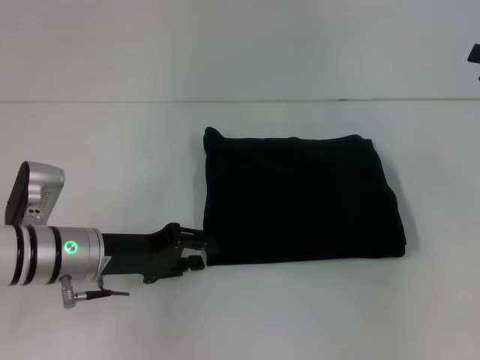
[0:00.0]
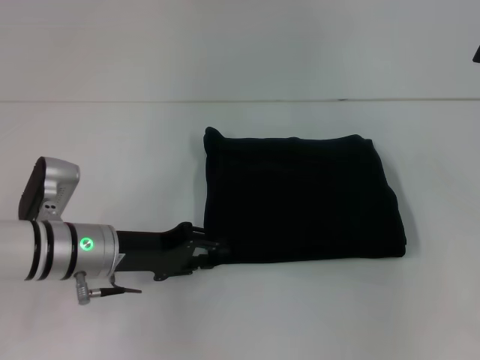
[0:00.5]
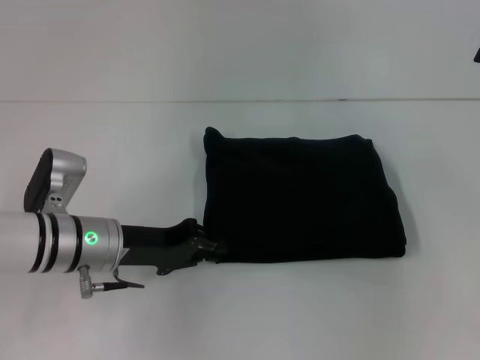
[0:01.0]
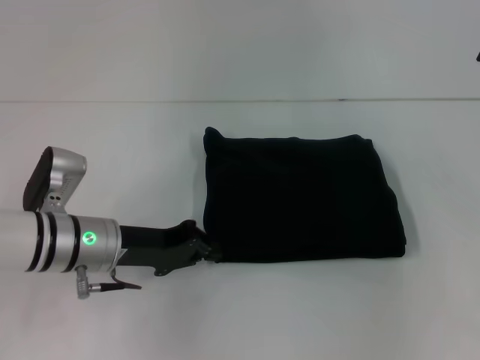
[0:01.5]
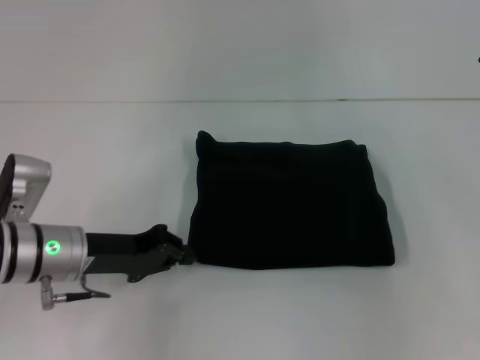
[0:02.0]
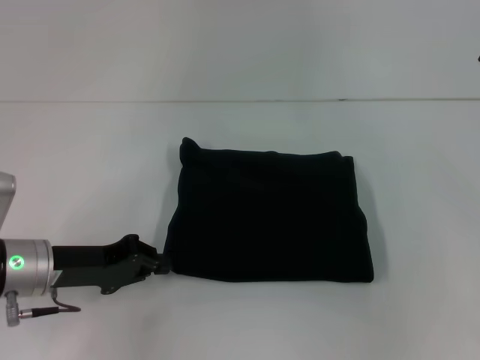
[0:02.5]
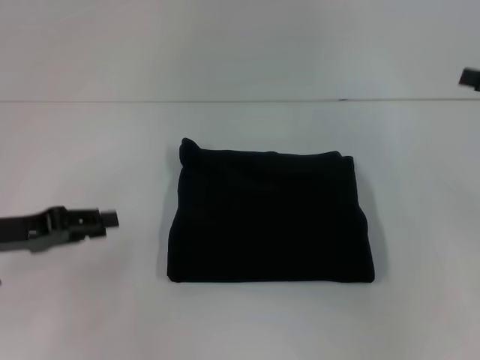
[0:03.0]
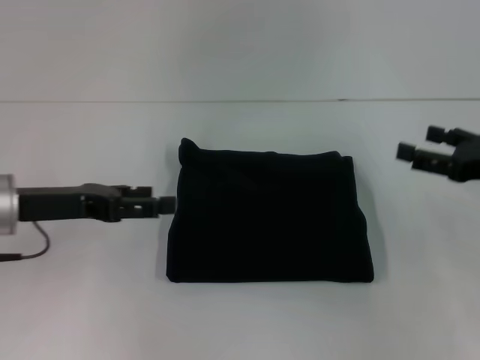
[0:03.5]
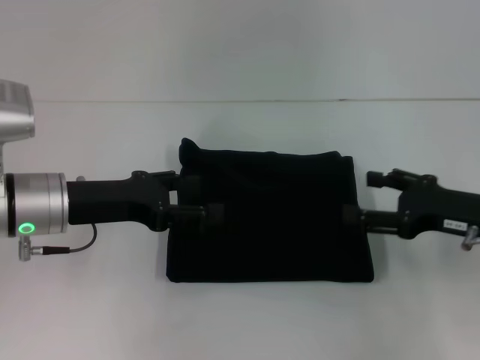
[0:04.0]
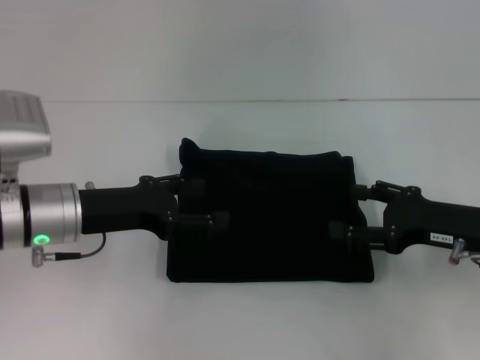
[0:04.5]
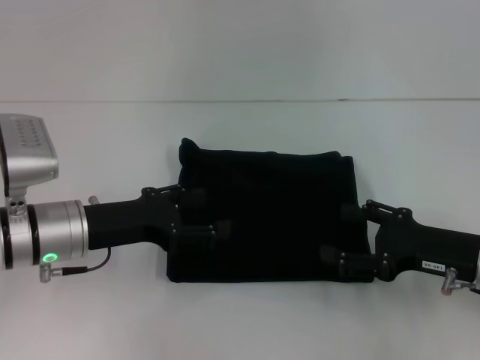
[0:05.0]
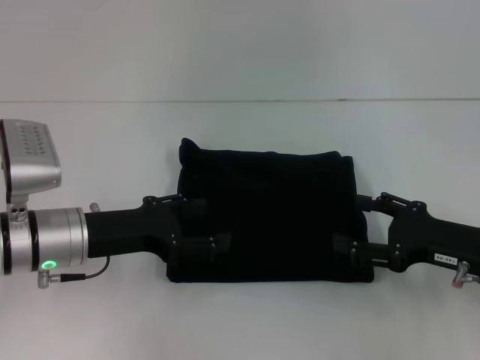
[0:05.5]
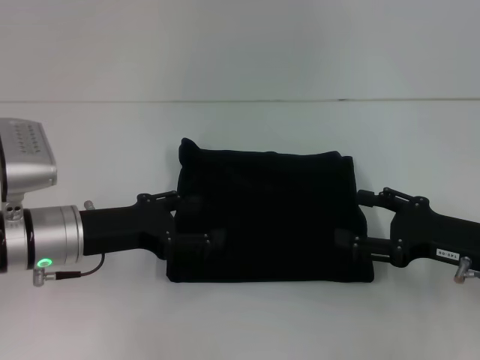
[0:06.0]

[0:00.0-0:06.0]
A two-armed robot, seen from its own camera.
0:00.0 to 0:02.0: The left gripper closes up.
0:02.0 to 0:04.0: The right gripper moves to the left, downward and backward, roughly 15 cm. Meanwhile the left gripper moves upward, some 5 cm, travels to the left and back again, about 10 cm each way, and opens.
0:04.0 to 0:06.0: The grippers stay close to where they were, moving slightly.
